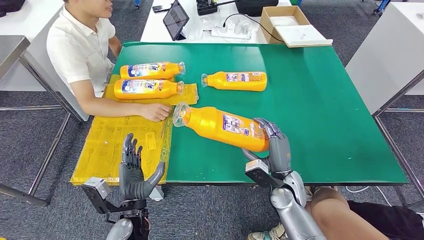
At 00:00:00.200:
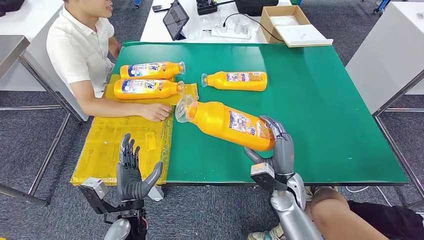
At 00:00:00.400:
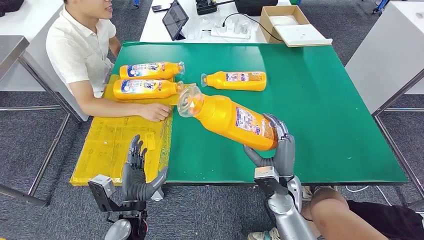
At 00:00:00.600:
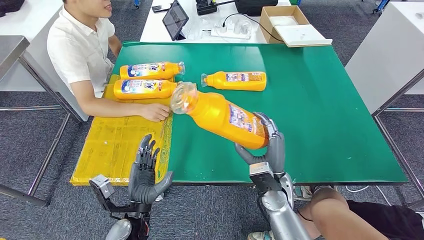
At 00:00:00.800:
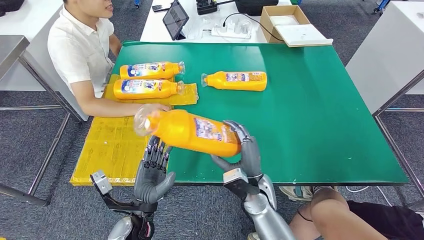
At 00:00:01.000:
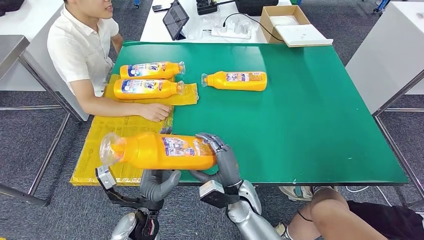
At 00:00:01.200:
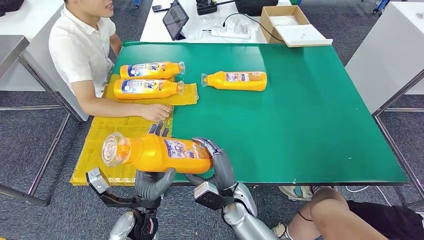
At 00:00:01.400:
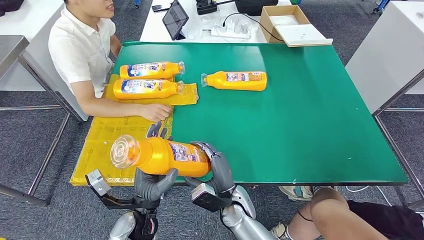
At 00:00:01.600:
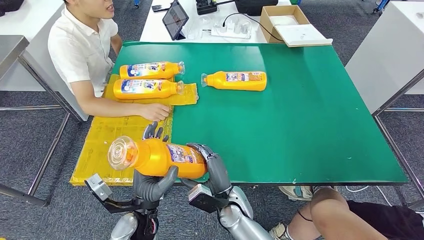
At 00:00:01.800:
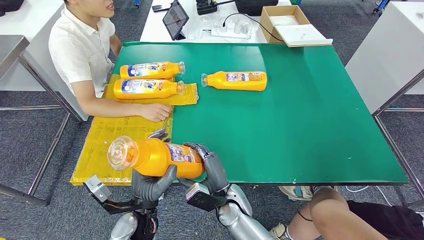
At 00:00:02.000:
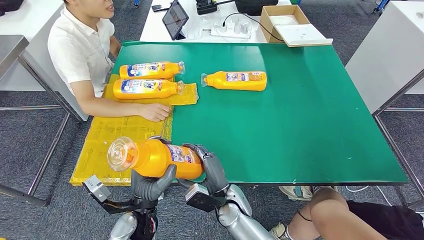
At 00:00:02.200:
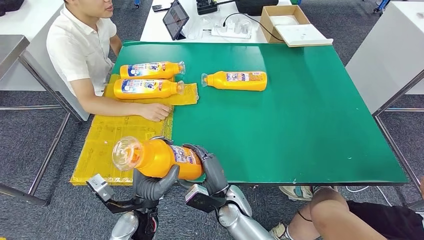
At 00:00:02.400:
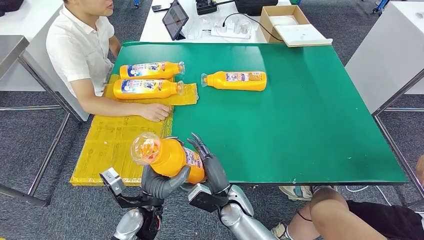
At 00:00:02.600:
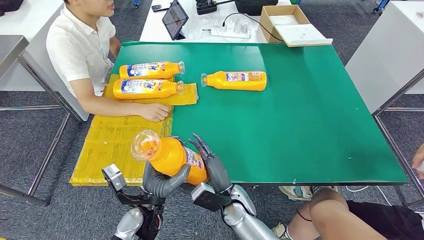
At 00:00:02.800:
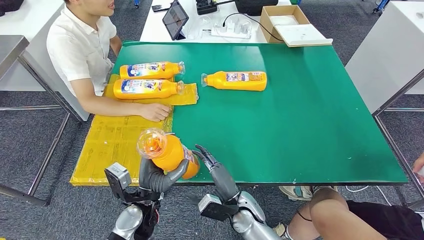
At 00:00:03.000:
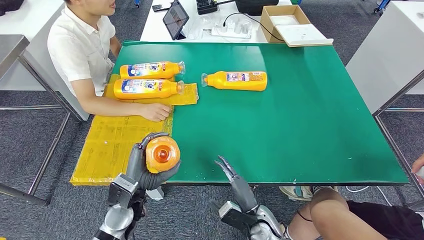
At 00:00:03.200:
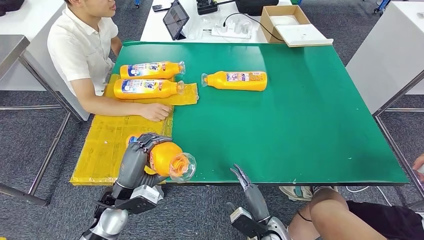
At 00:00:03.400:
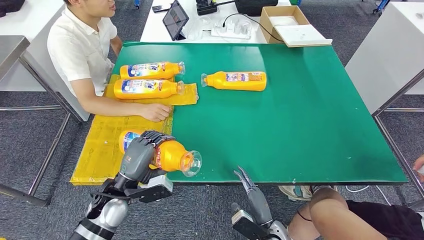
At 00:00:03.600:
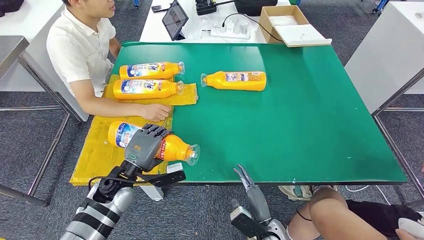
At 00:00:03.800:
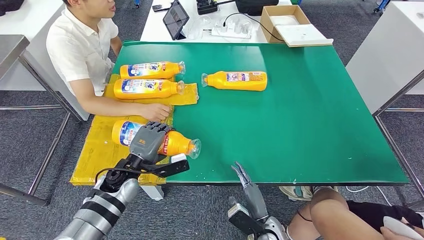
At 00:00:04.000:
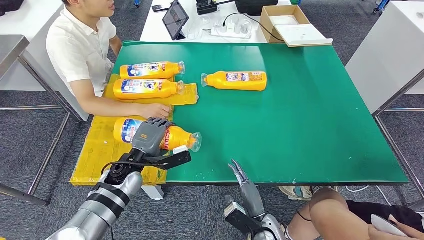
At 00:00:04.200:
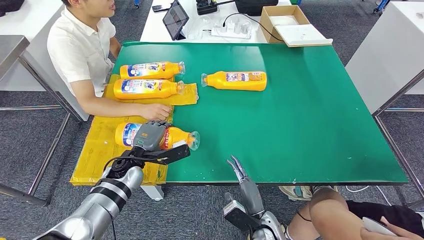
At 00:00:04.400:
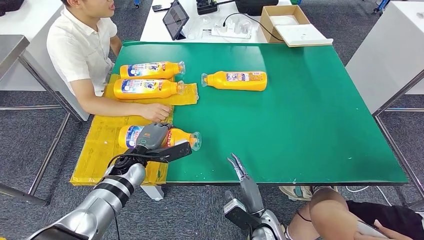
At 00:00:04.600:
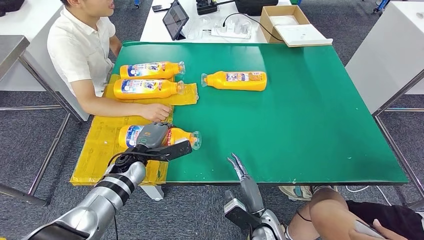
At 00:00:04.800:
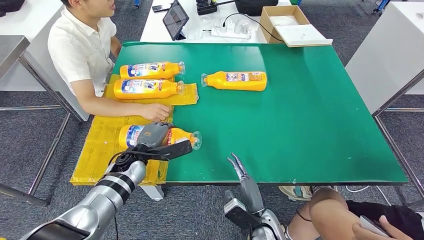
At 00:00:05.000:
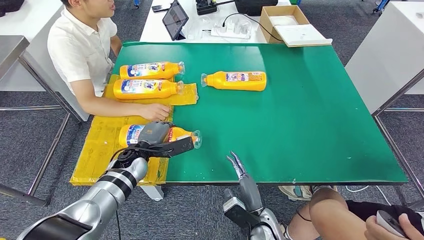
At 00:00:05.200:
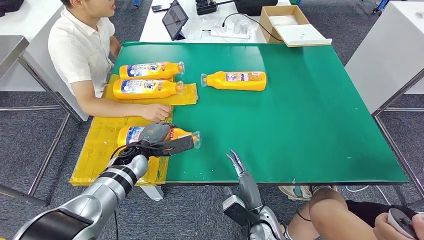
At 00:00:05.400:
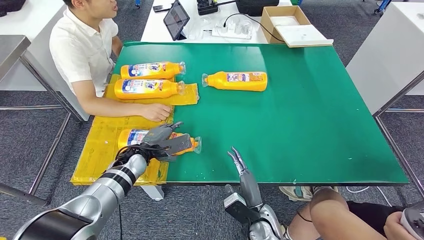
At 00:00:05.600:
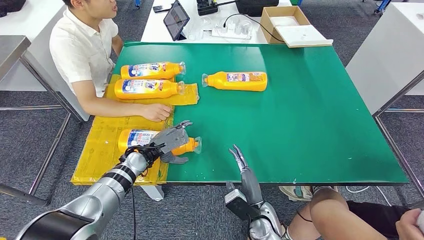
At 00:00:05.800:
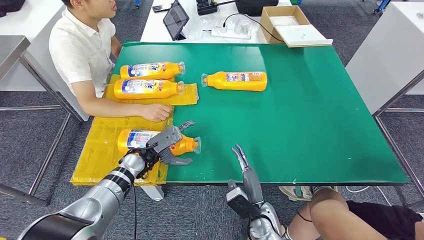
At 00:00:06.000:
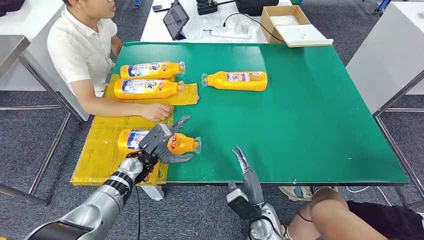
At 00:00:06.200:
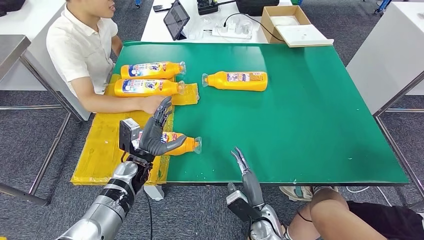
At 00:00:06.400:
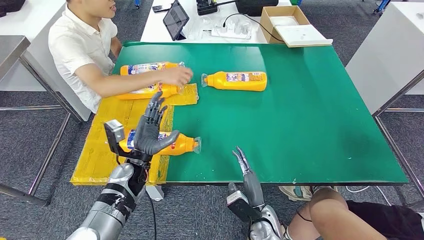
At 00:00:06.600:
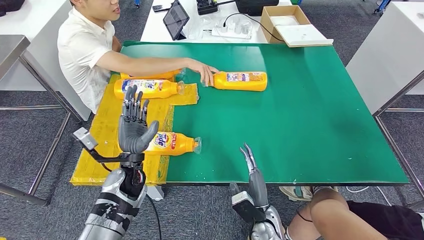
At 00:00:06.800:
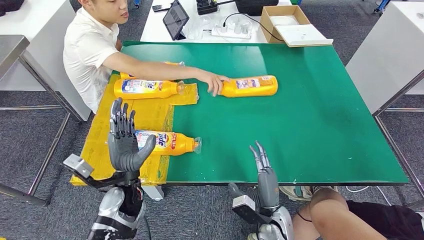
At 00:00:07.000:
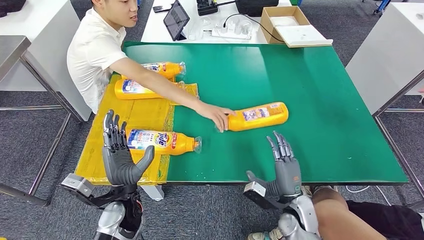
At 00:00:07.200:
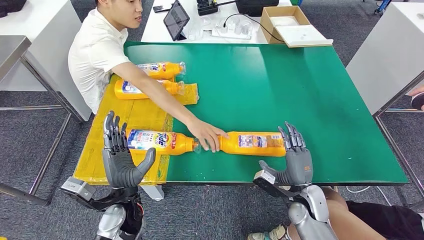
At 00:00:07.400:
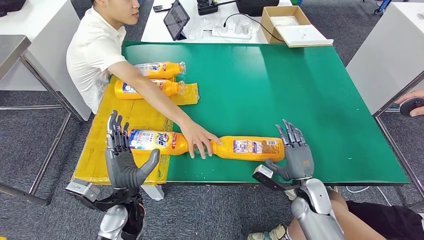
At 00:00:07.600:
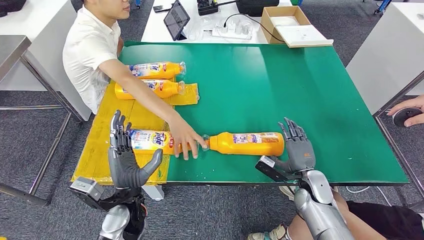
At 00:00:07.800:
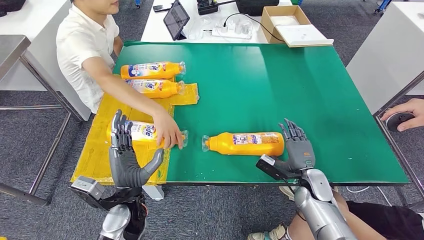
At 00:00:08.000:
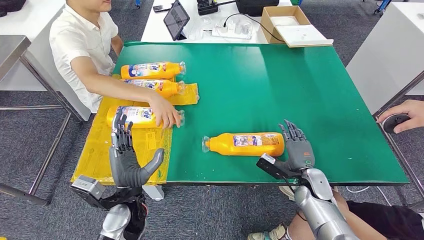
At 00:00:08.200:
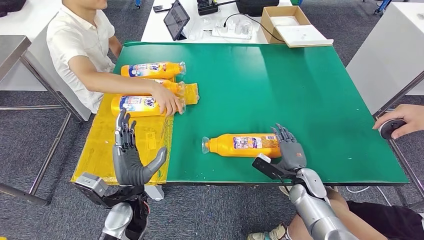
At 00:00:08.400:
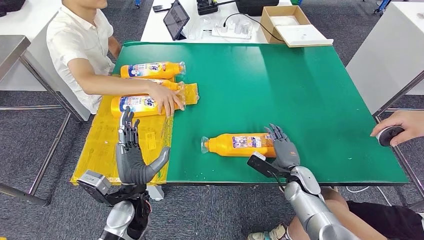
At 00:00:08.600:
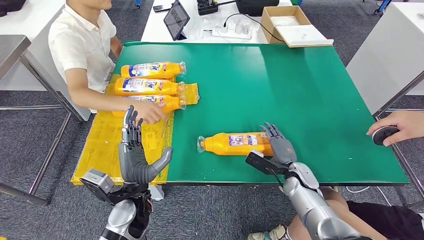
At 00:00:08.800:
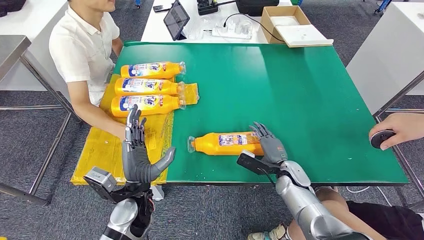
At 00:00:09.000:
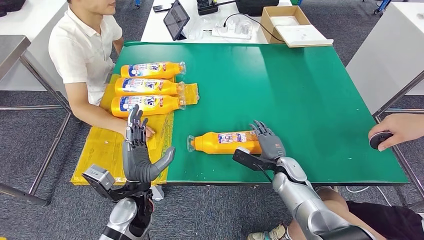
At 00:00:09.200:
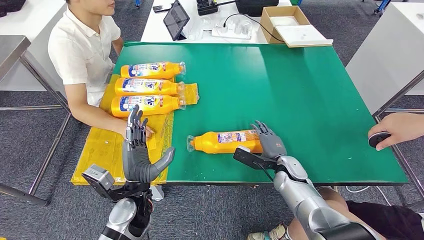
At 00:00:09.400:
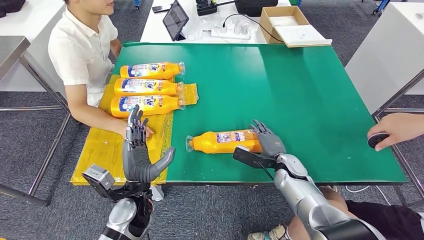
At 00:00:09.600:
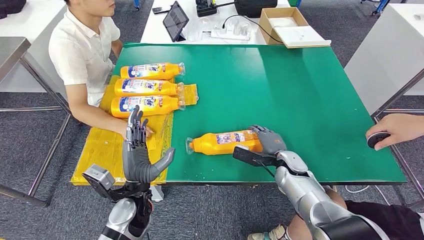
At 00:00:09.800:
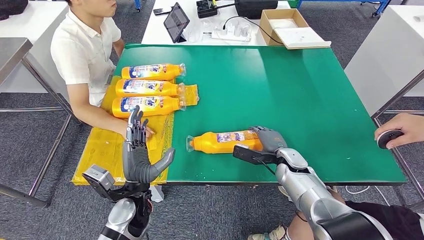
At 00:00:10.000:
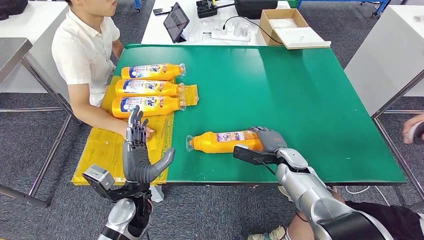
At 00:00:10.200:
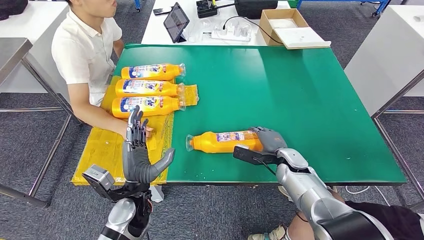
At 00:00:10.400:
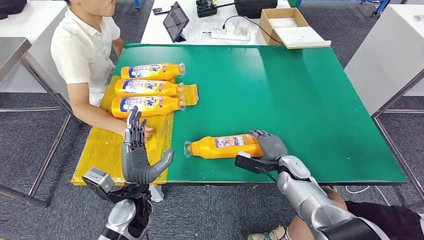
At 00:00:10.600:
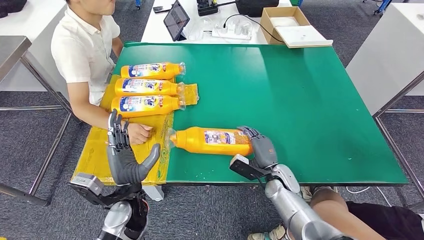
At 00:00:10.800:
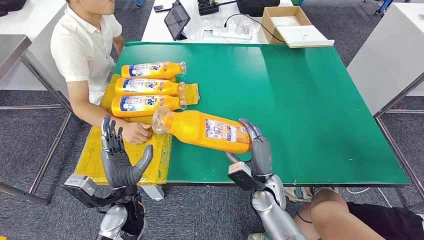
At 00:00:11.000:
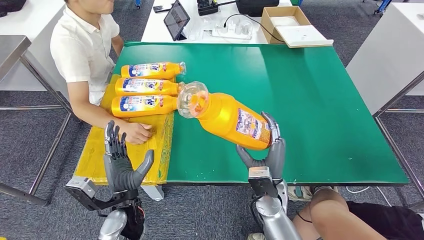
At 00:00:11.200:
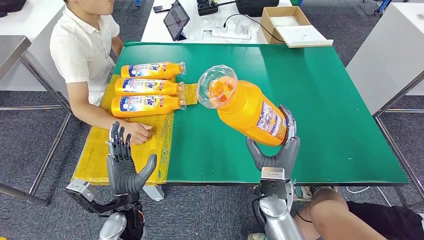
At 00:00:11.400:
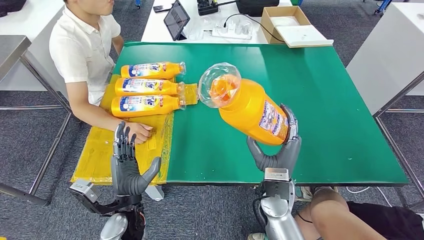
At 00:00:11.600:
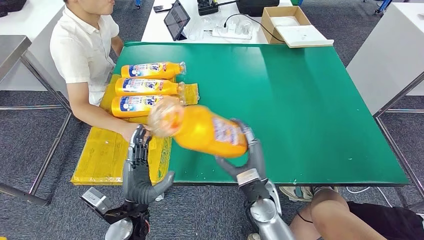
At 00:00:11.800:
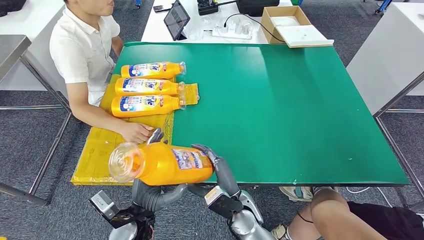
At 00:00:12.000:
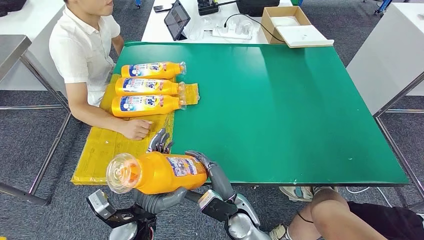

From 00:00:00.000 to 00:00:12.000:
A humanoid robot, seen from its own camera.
Step, from 00:00:01.000 to 00:00:05.200: Flip the fast-moving consumer goods bottle to the front side.
From 00:00:00.000 to 00:00:01.600: The right hand heads to the left, covering about 15 cm.
From 00:00:01.600 to 00:00:03.000: The right hand heads to the right, covering roughly 10 cm. Meanwhile the left hand changes place by approximately 5 cm.
From 00:00:03.000 to 00:00:04.400: The left hand goes approximately 10 cm forward.
From 00:00:09.000 to 00:00:10.400: The hands make only small movements.

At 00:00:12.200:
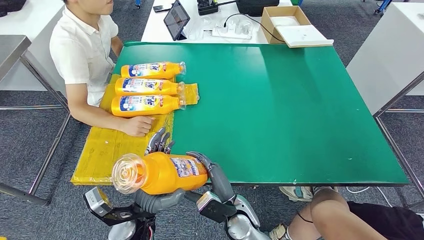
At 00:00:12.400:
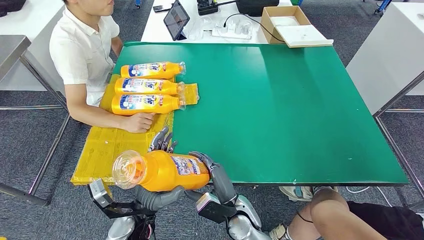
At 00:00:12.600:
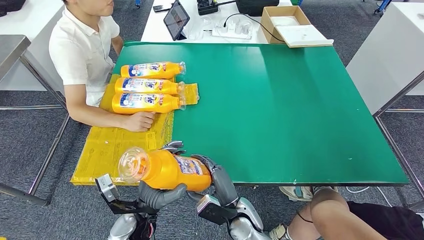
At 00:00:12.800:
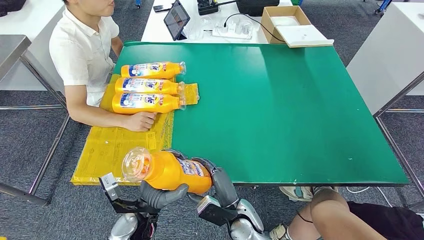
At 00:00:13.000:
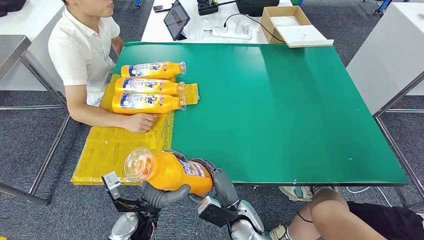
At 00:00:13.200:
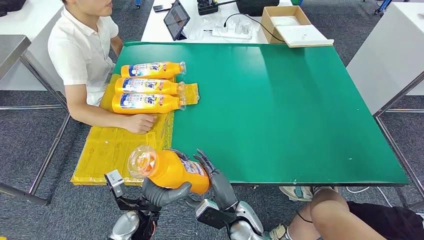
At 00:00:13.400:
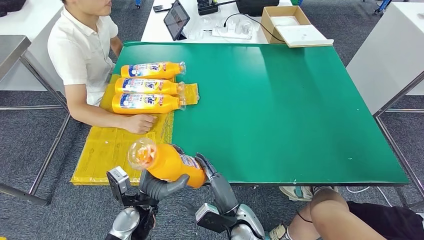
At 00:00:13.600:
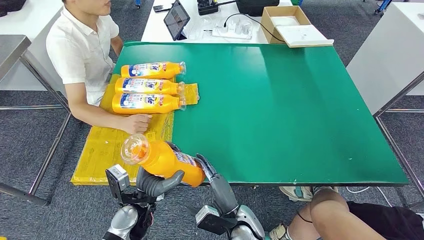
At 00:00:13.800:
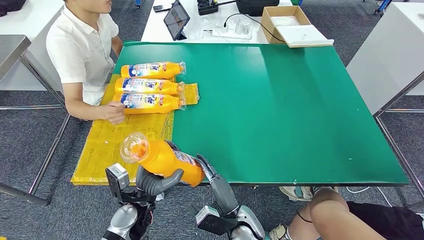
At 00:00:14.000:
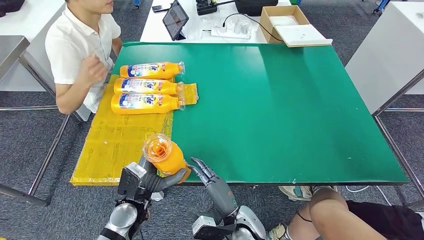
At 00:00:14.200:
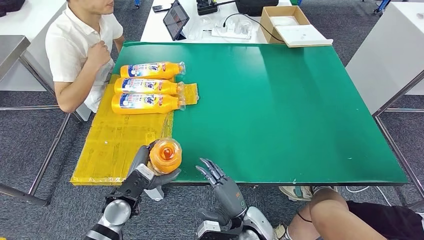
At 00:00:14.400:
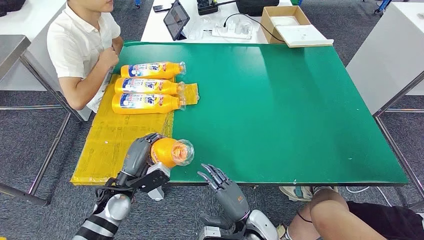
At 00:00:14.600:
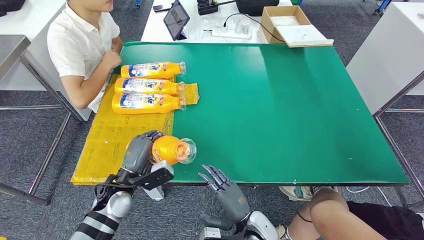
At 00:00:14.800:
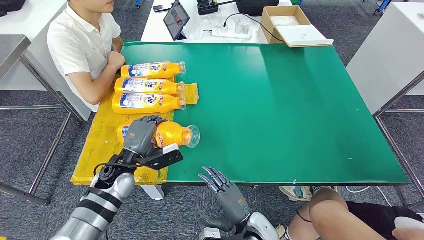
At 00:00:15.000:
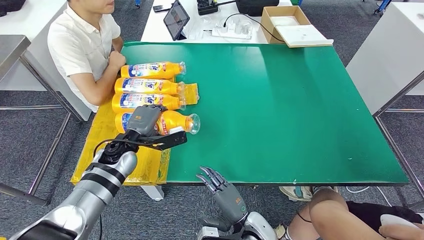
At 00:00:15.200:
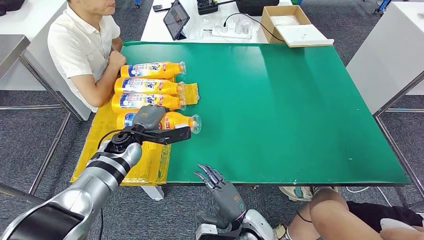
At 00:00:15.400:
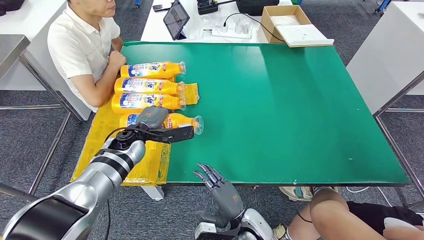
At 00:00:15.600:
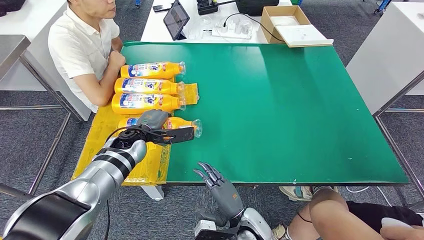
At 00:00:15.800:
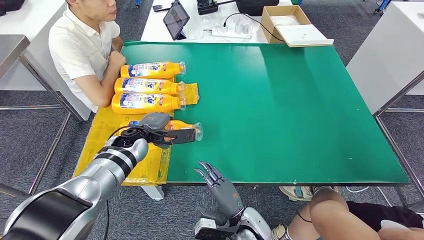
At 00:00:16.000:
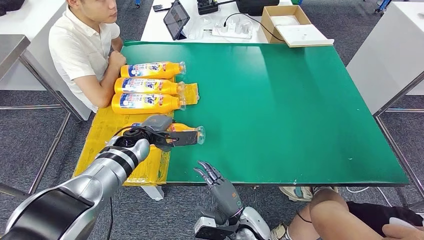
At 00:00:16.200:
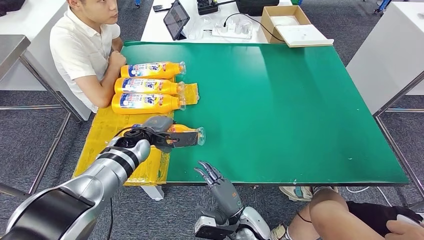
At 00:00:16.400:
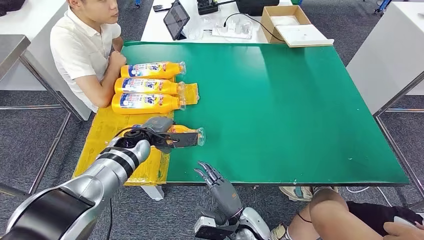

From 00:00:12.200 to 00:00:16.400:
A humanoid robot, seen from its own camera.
Step, from 00:00:12.400 to 00:00:16.200: Flip the fast-moving consumer goods bottle to the front side.
From 00:00:13.600 to 00:00:15.000: The left hand is displaced forward and upward by some 15 cm.
